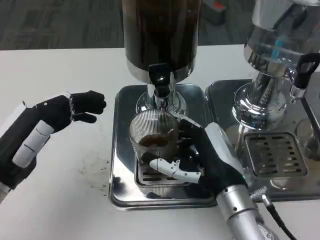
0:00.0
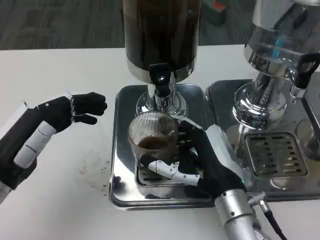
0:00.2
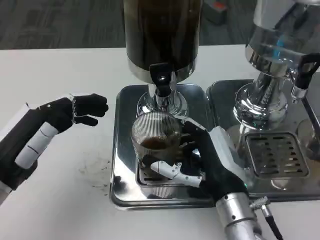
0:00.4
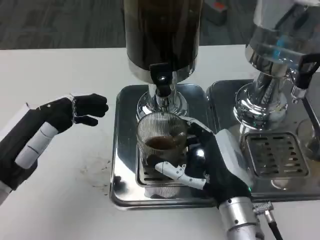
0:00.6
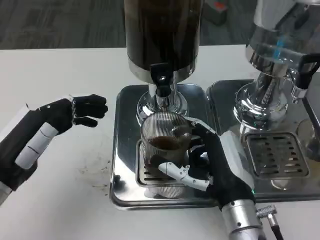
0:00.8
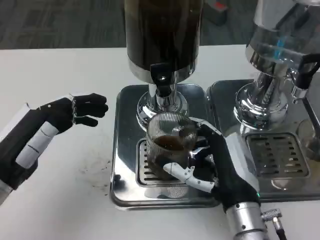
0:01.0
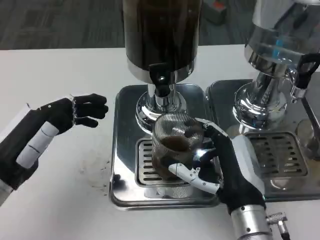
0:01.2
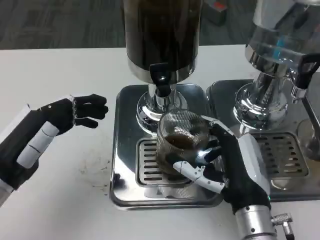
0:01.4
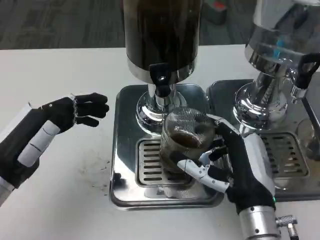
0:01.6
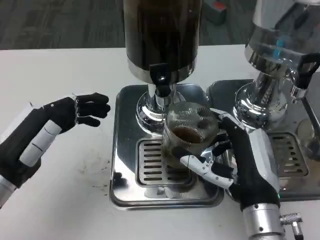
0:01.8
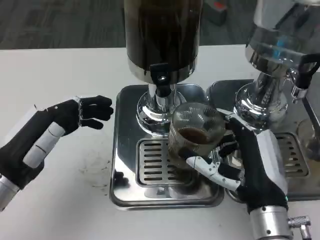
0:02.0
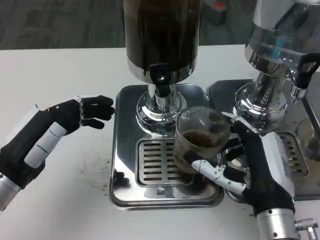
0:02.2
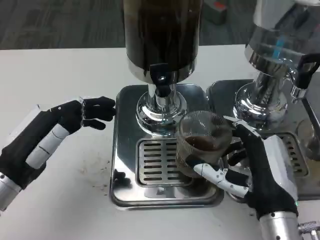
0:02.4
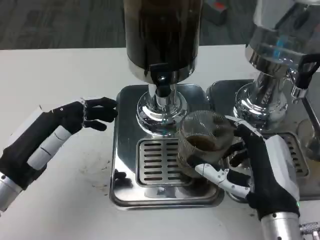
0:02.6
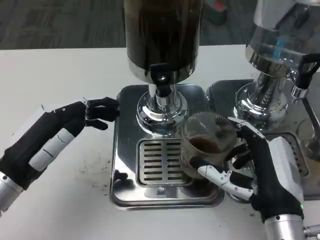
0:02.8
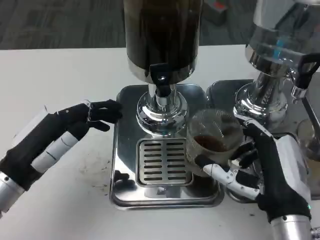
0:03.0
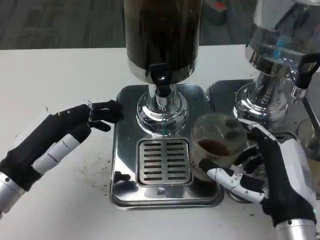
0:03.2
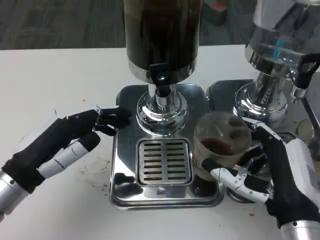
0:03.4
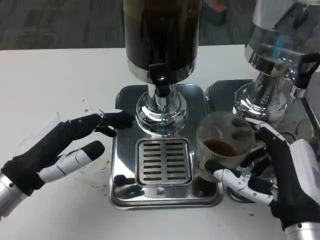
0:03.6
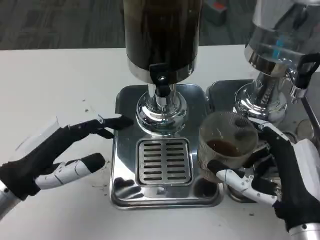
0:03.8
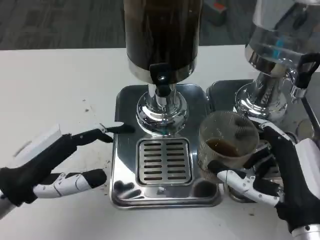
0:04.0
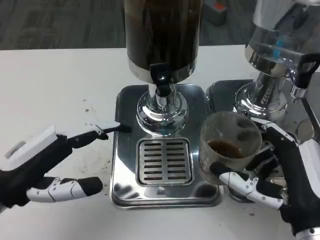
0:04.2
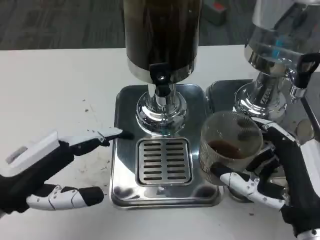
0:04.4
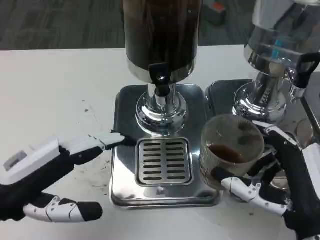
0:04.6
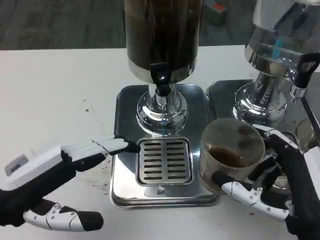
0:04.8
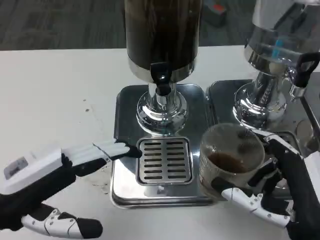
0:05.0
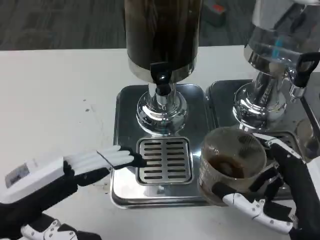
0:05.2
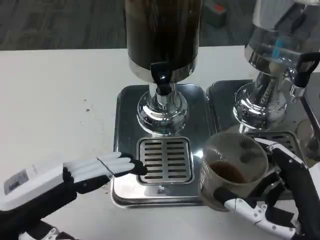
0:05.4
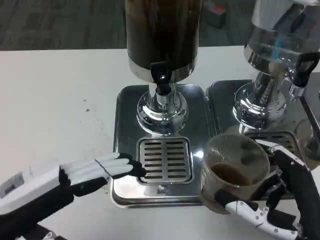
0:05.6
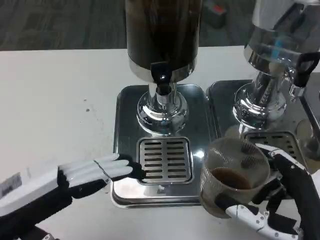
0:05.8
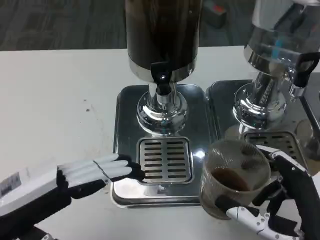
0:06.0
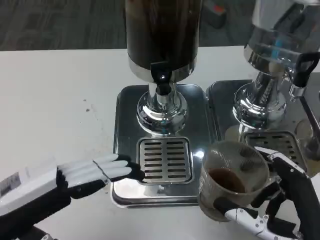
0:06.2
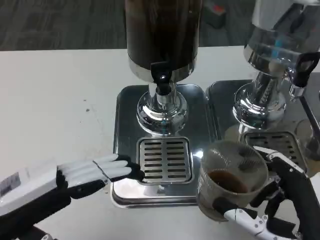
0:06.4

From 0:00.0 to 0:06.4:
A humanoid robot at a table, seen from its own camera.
Task of the whole recording: Grasp the cup under the faucet to collect the drink, then remove the cup.
From 0:01.6 to 0:03.2: The right hand shifts by about 5 cm.
From 0:03.2 to 0:04.8: The right hand shifts by about 5 cm.

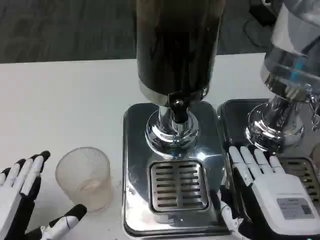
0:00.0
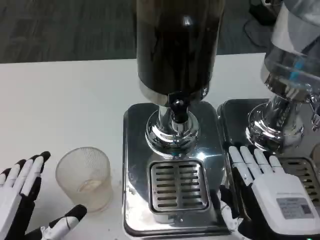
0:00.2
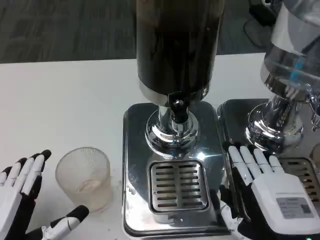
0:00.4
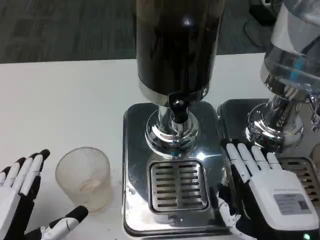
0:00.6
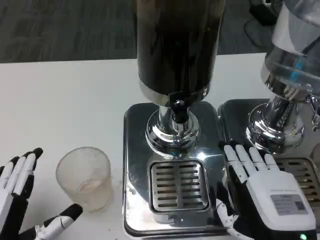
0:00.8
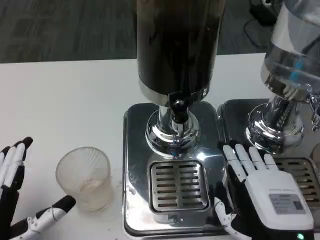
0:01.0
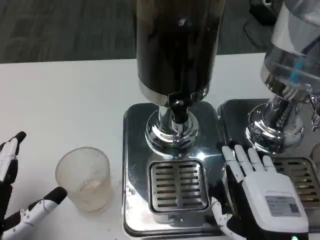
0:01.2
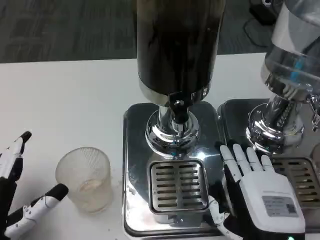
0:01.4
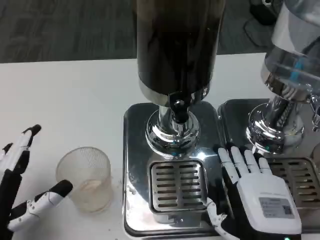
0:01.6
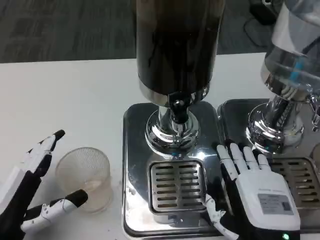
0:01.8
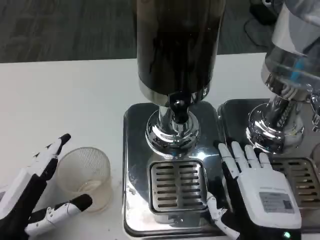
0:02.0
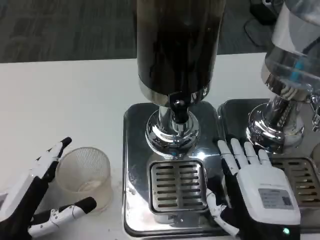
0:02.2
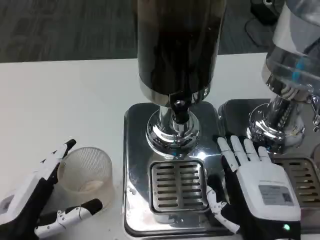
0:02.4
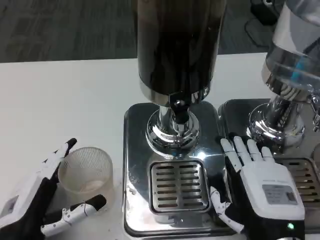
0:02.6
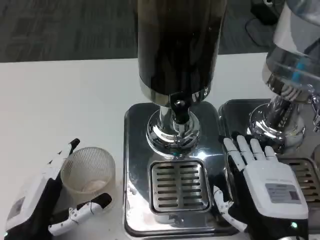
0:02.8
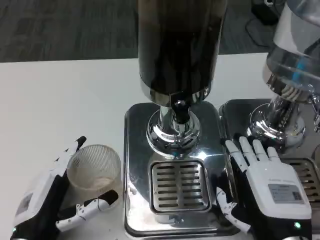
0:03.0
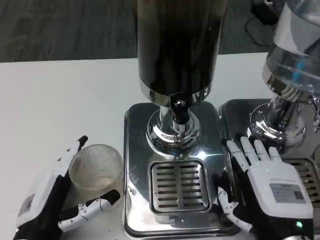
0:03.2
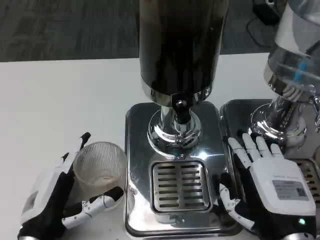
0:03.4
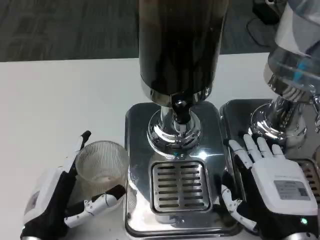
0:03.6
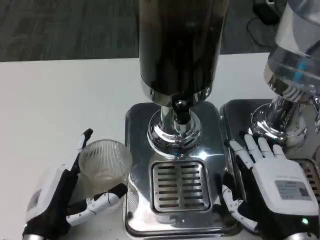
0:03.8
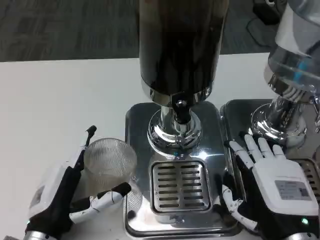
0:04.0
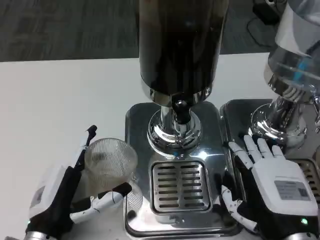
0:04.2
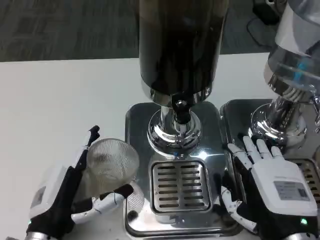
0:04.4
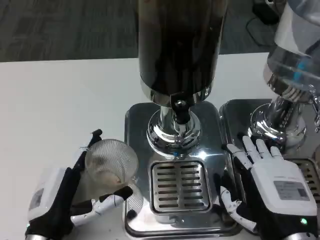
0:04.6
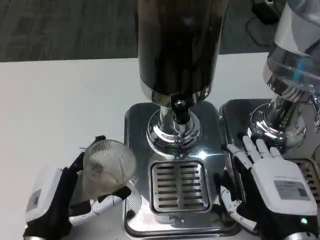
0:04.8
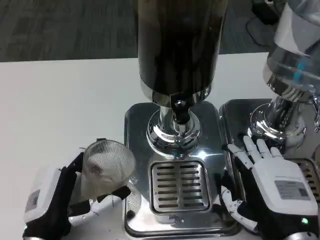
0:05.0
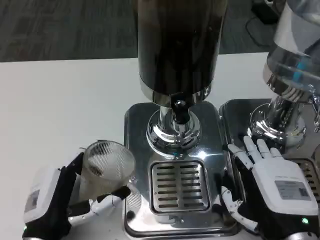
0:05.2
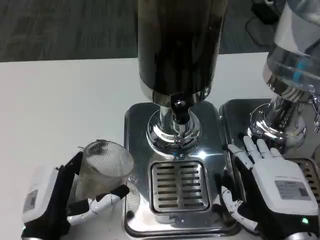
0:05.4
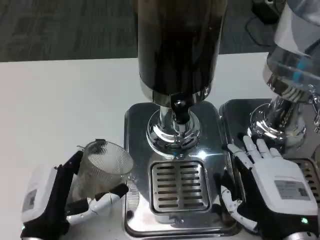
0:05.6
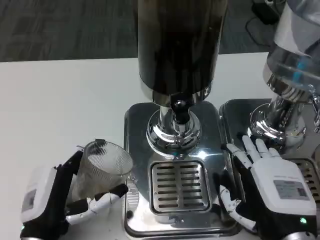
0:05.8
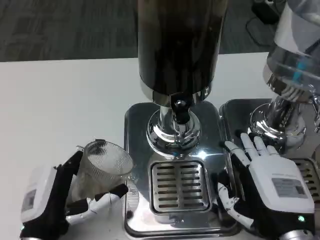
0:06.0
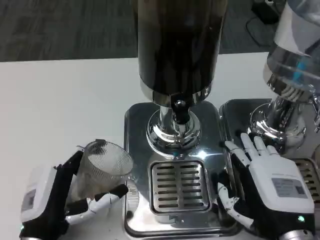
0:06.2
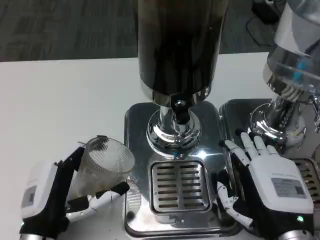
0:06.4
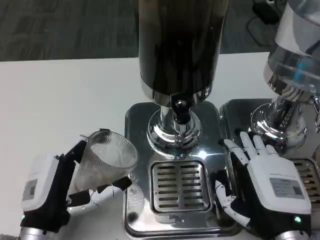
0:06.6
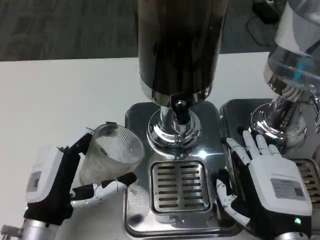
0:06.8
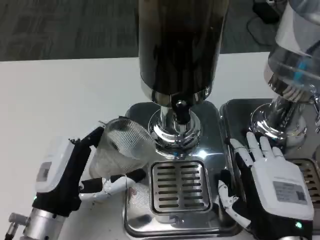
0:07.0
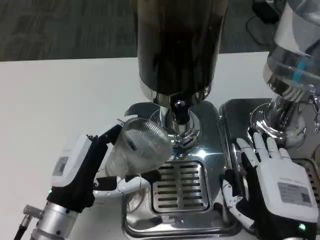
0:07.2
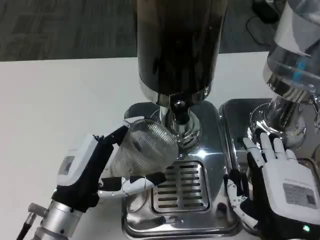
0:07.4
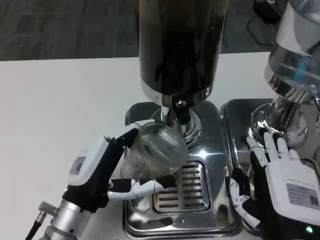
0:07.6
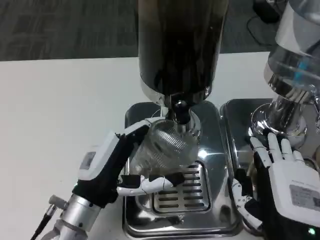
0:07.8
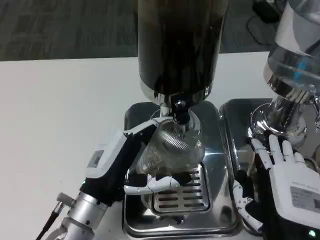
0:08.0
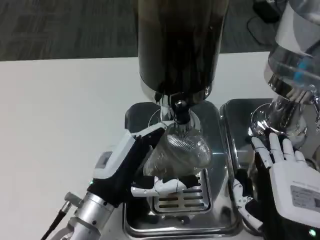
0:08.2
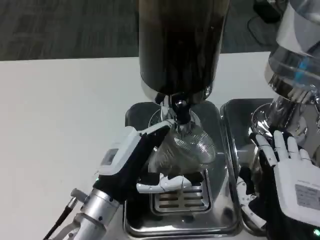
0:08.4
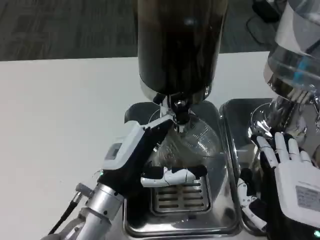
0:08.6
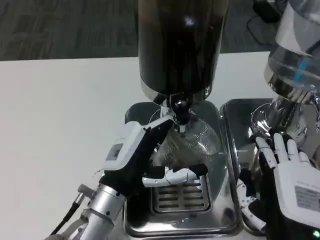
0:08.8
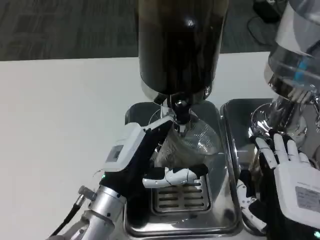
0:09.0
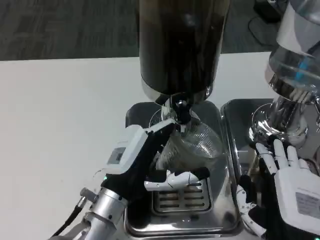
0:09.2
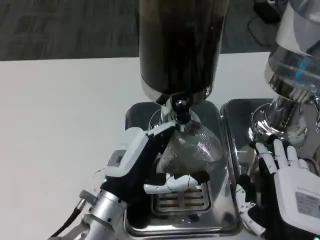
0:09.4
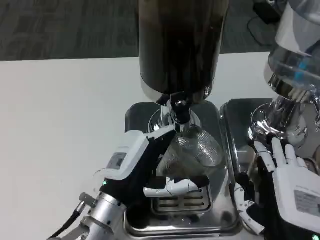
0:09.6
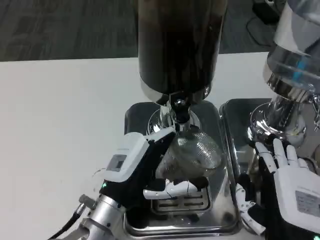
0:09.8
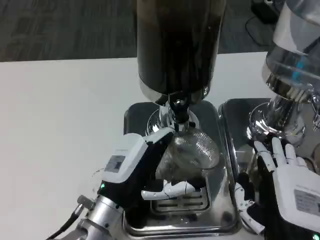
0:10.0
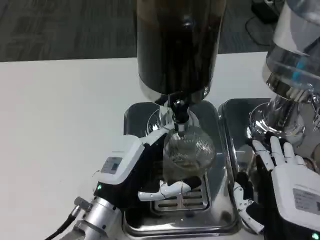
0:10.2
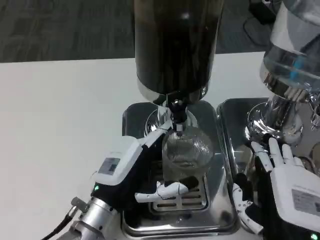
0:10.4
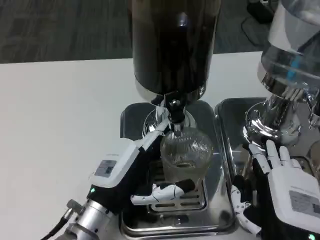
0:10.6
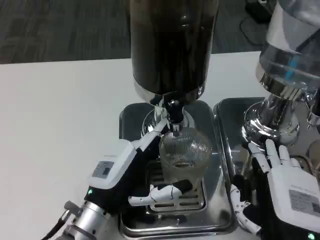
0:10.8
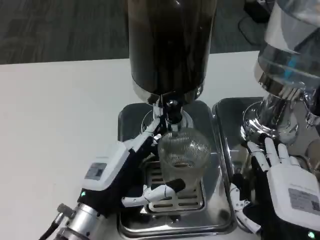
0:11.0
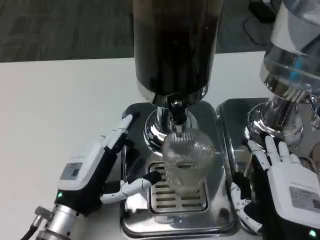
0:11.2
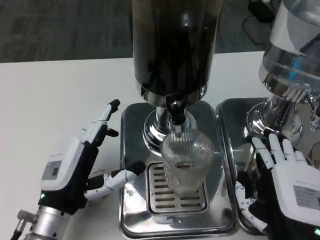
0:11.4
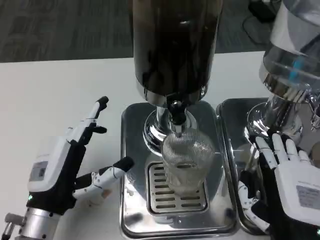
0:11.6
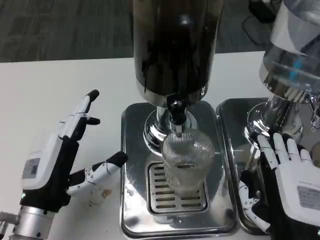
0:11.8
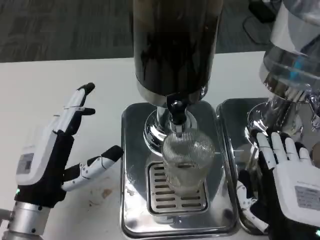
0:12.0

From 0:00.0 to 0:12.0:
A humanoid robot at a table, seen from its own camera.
Task of the whole recording: Grasp the cup under the faucet to collect the drink, then remove the cup.
From 0:00.0 to 0:01.6: The left hand ends up approximately 5 cm from where it was.
From 0:01.6 to 0:03.0: The left hand changes place by approximately 5 cm.
From 0:03.0 to 0:06.0: The hands move only a little.
From 0:06.0 to 0:07.6: The left hand changes place by about 5 cm.
From 0:07.6 to 0:09.0: The left hand moves some 5 cm.
From 0:10.4 to 0:12.0: The left hand goes about 5 cm to the left.

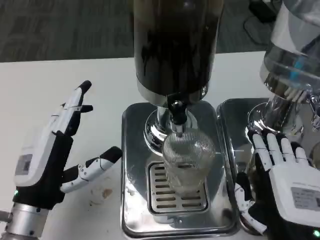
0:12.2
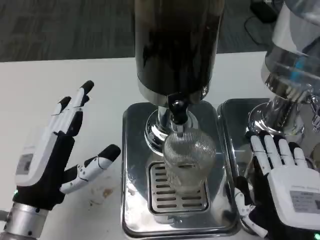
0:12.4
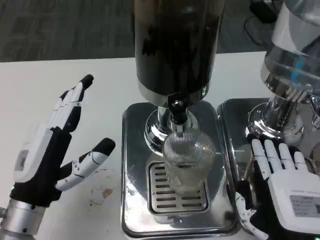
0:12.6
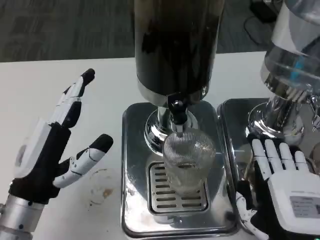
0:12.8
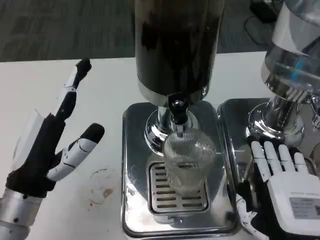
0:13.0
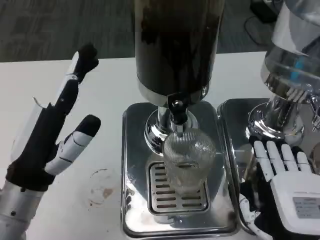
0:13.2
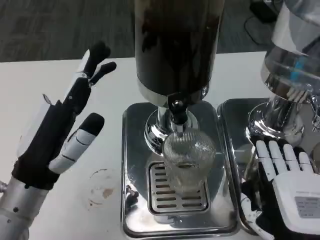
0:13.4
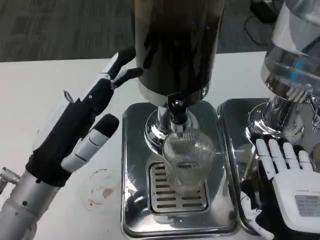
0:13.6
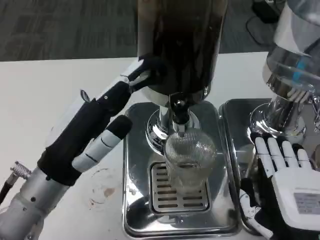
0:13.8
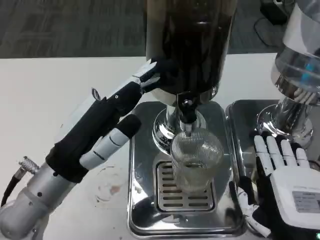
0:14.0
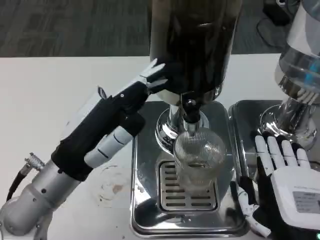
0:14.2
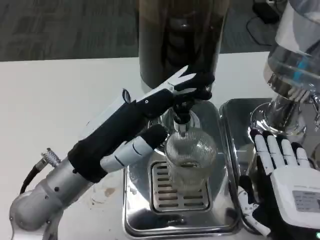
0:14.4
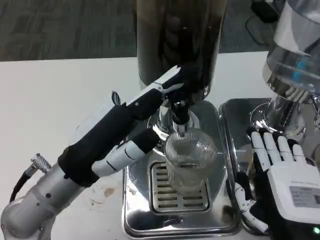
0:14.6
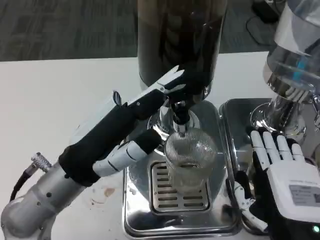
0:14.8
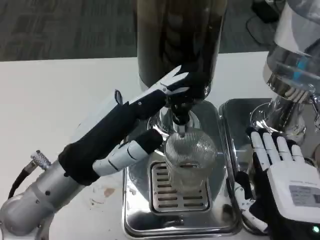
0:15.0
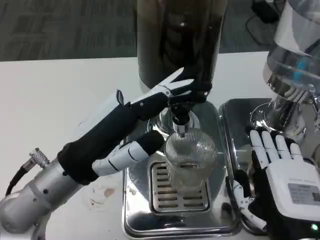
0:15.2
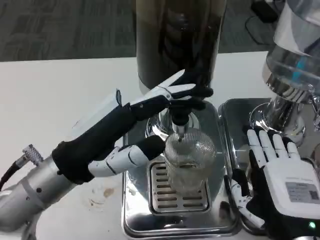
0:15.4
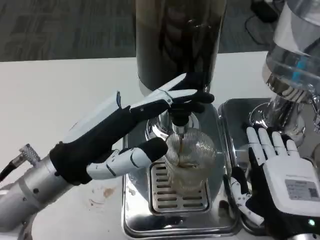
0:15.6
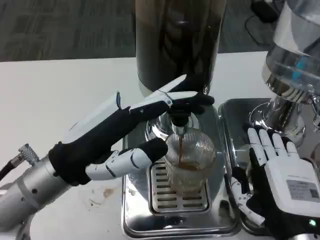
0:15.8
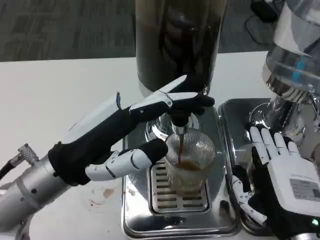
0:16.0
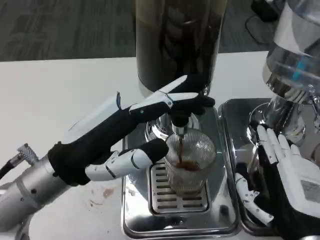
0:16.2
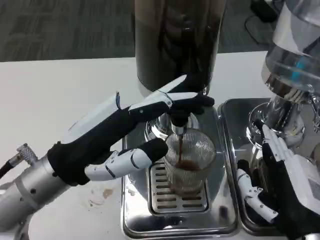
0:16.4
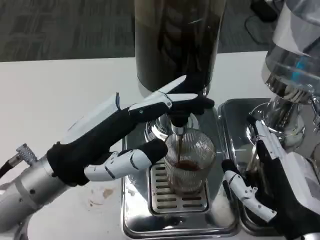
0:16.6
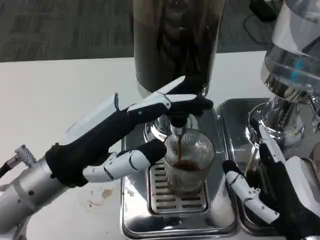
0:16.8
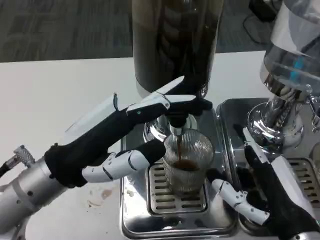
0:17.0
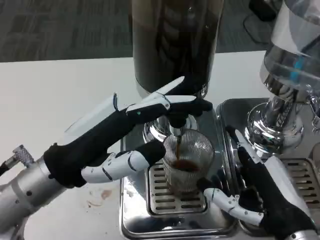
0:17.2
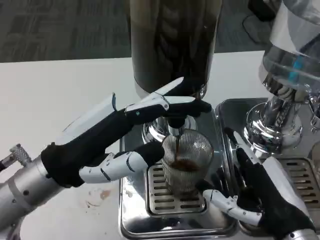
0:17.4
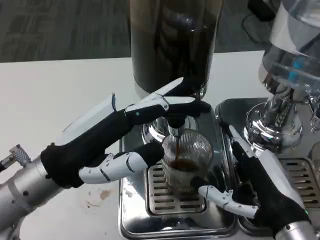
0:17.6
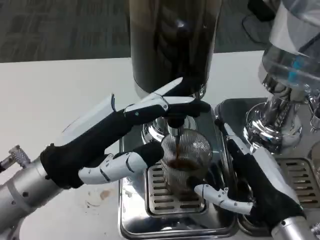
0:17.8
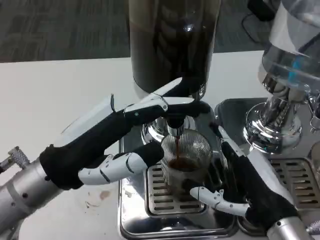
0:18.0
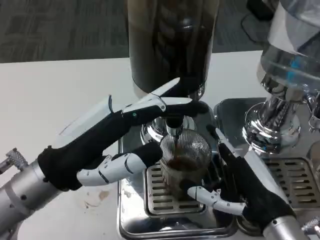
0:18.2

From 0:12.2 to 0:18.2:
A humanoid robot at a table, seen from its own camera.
Task of the whole recording: Grasp the cup under the faucet to collect the drink, then remove the cup.
From 0:12.2 to 0:13.8: The left hand goes roughly 5 cm upward.
